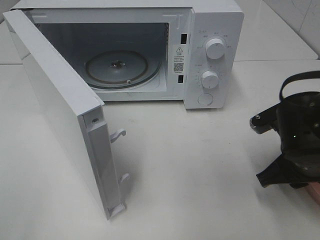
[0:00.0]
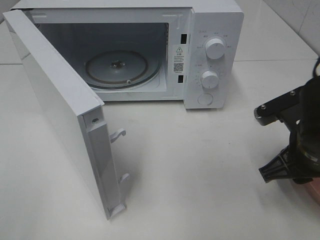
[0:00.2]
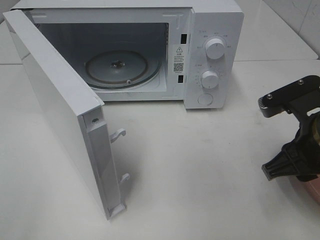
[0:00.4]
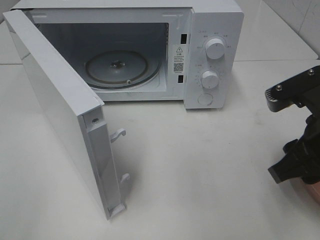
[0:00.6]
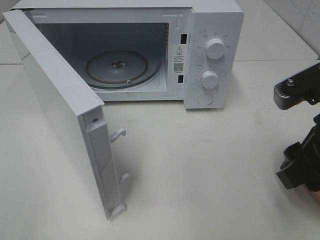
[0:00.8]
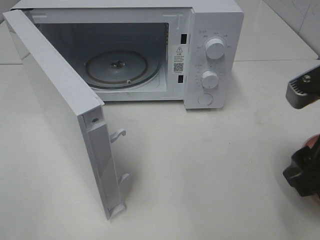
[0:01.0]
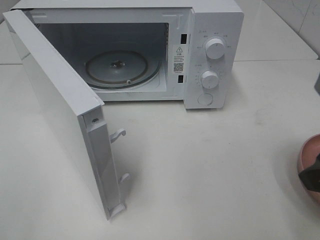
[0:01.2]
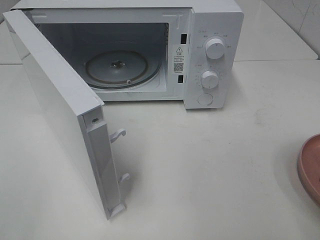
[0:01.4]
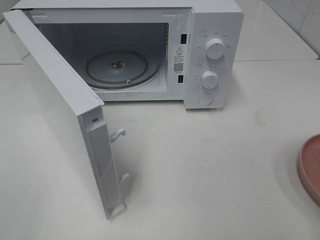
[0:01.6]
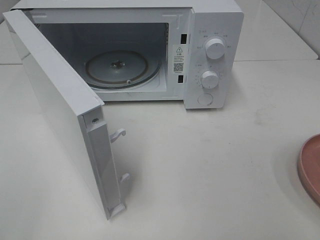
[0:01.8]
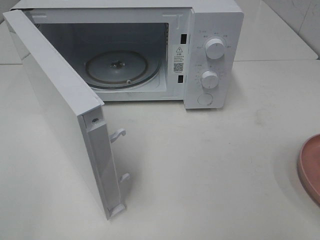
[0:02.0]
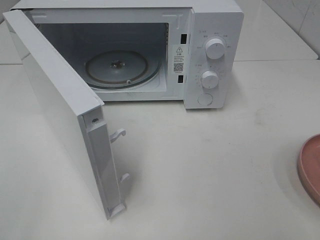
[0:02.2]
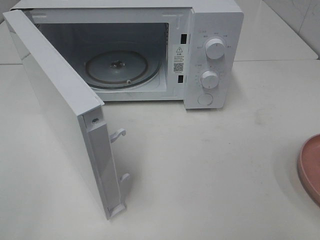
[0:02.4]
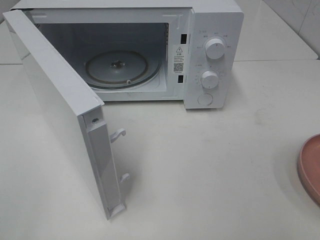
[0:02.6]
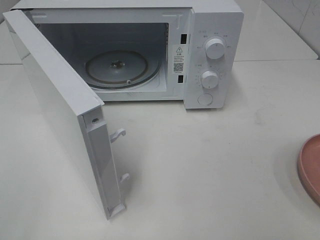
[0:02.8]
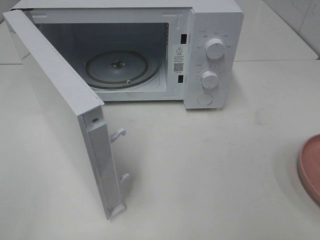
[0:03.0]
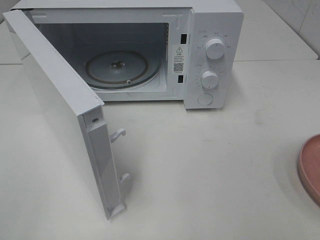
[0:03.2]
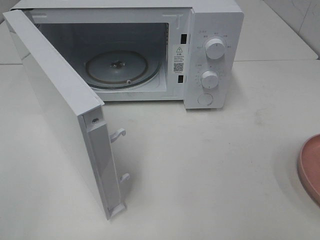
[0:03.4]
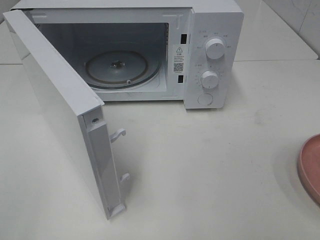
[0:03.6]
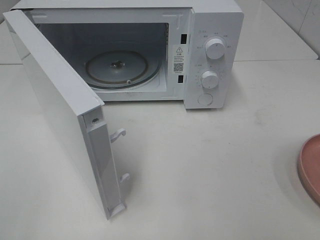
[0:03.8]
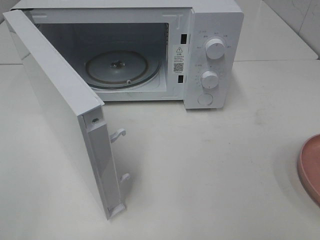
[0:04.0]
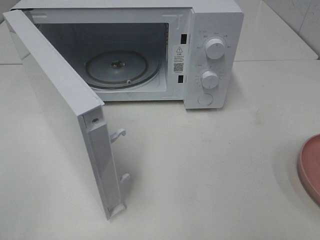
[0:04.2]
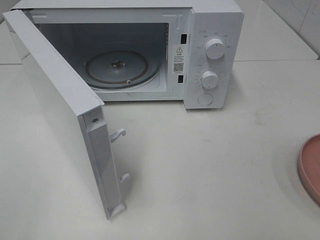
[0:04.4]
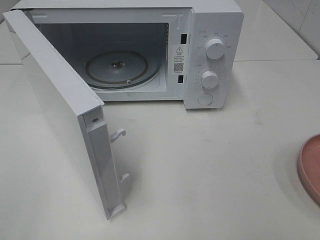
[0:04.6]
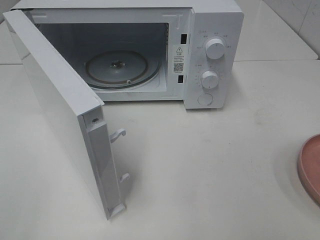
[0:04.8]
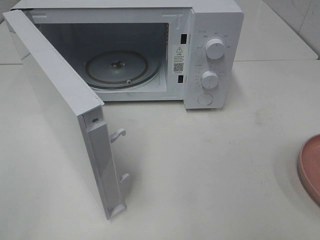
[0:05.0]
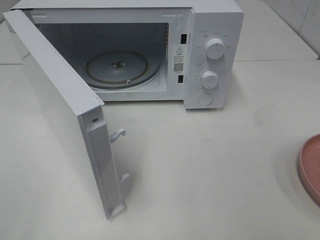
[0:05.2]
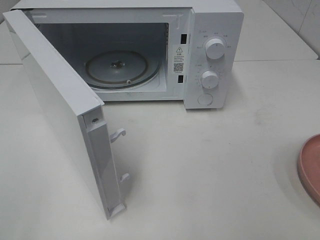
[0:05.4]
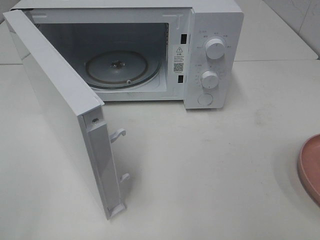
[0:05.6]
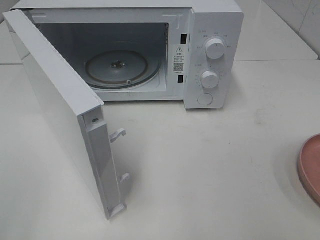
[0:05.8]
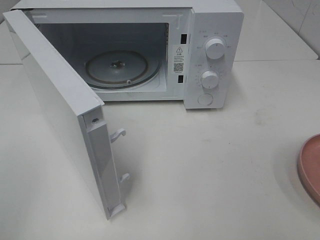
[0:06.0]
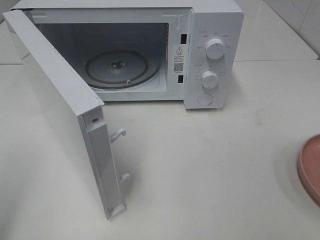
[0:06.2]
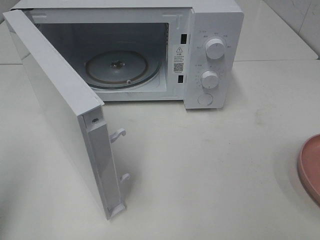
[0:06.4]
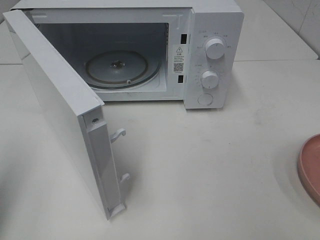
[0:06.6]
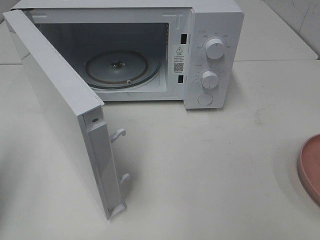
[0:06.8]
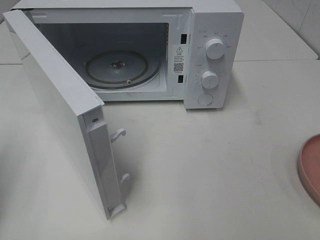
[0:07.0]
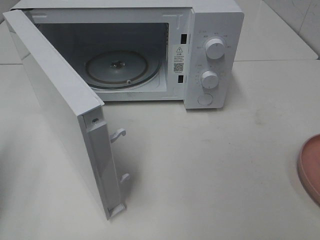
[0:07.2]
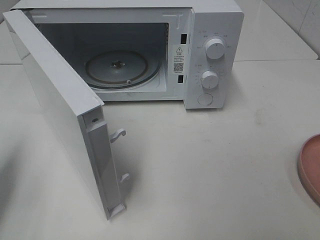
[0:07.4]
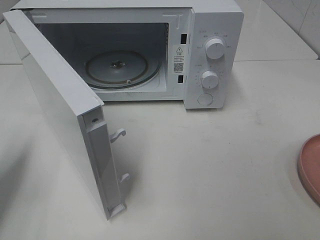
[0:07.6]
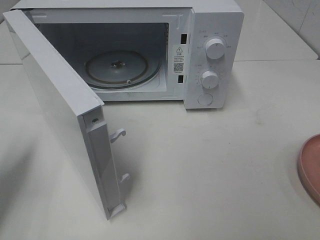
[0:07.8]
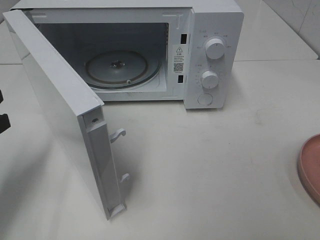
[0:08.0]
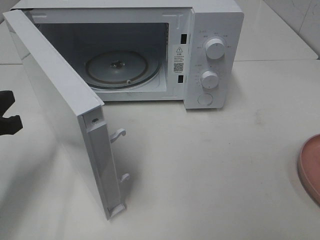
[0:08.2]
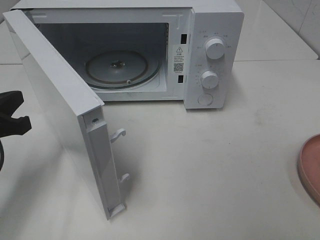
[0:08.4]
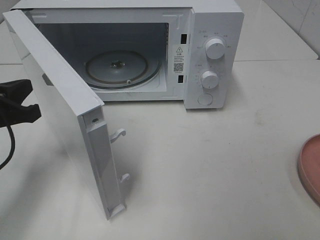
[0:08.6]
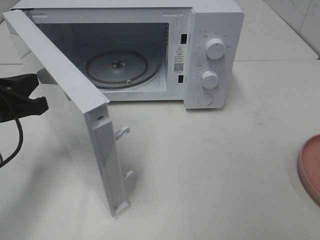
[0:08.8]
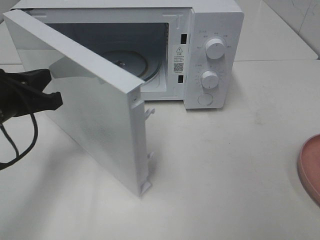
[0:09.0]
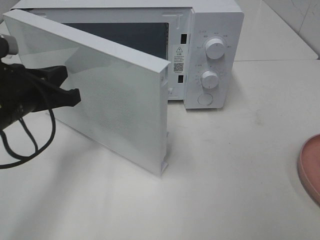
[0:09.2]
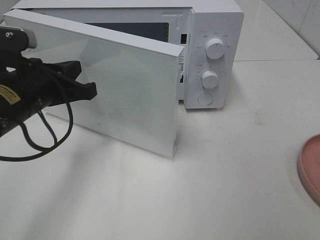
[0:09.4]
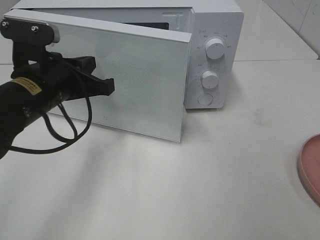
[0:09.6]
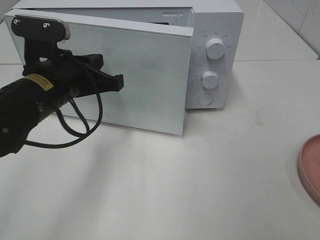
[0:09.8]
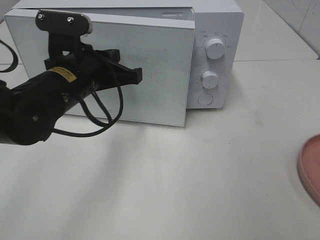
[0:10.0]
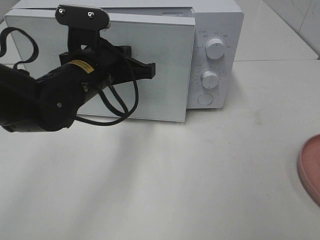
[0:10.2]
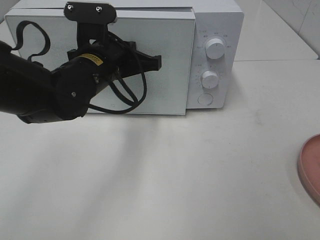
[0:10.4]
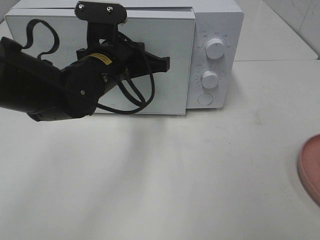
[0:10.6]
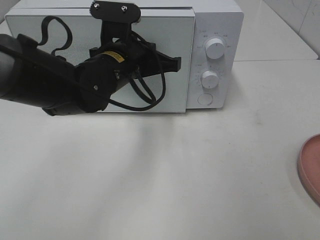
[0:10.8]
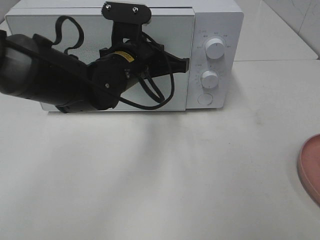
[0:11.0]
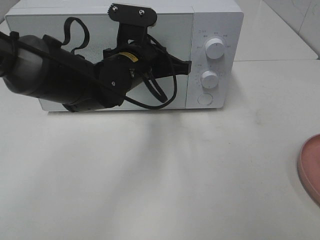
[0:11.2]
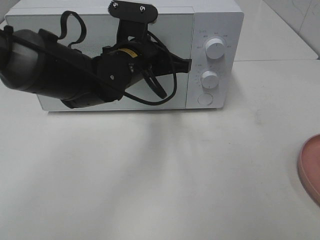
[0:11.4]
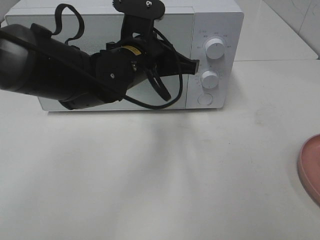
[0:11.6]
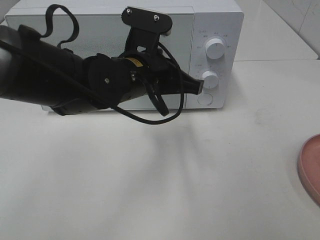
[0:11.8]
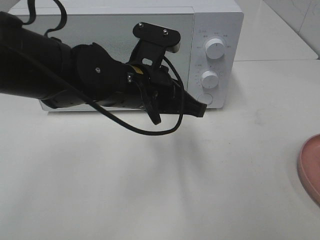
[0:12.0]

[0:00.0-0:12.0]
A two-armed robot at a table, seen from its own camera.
Task of the whole recording: Heat the burger.
Step, 0:00.0 to 0:11.6: Left hand: close the microwave door.
0:00.0 to 0:01.6: The right gripper heads upward and backward, covering about 20 cm.
0:06.0 to 0:07.6: The left gripper moves forward and downward, approximately 20 cm, and closes.
0:07.6 to 0:09.0: The left gripper shifts approximately 10 cm to the right.
0:09.0 to 0:10.4: The left gripper shifts roughly 15 cm to the right and forward.
0:10.4 to 0:12.0: The left gripper travels to the right by roughly 5 cm.

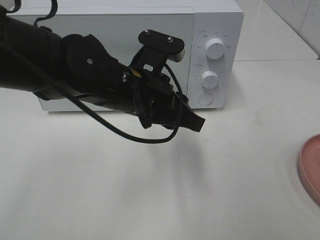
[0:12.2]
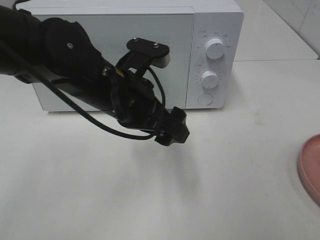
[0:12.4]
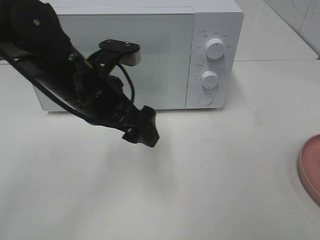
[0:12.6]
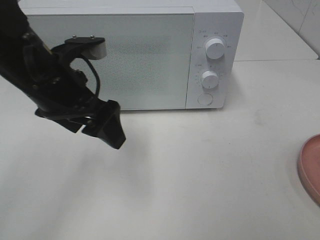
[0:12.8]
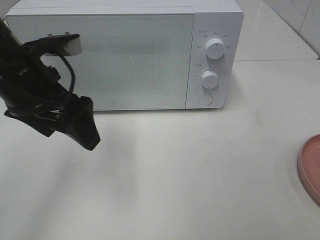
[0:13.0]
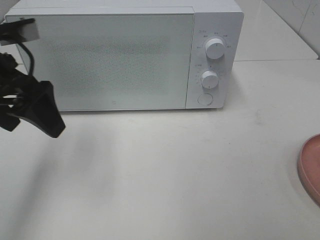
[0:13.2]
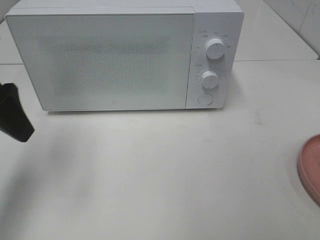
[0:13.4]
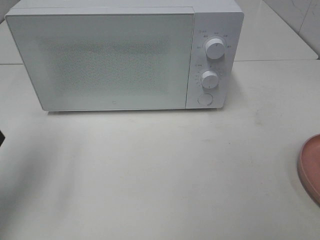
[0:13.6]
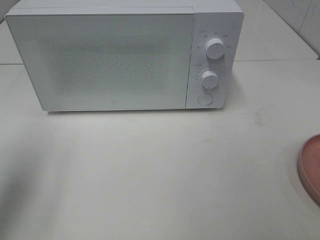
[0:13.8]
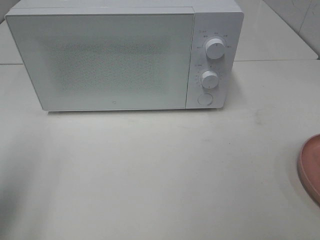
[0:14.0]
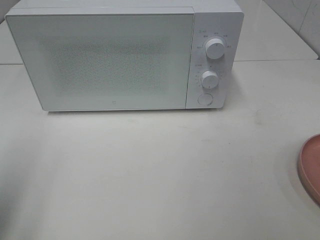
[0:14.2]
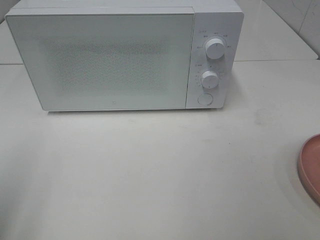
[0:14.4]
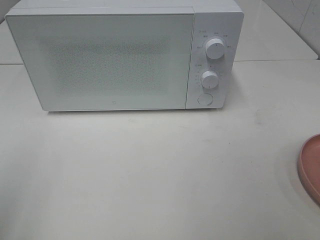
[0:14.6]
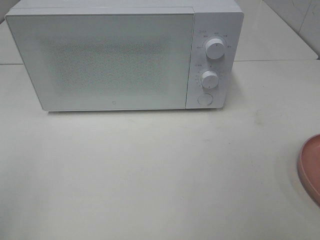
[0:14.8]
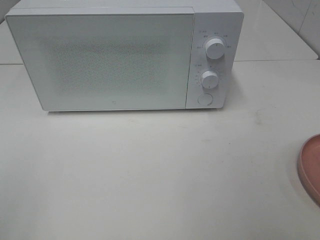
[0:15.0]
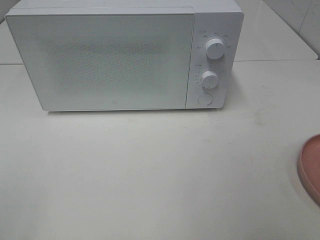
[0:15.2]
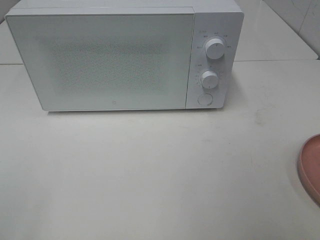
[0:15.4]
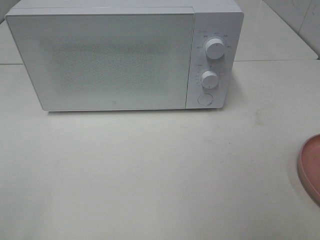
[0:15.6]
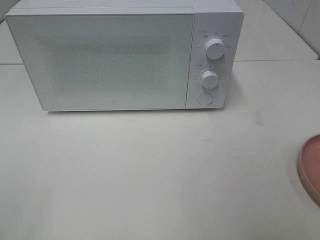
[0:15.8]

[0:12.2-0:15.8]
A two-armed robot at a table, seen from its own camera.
Task of the whole recording: Heat the burger.
0:12.2 to 0:14.0: The left gripper moves to the left and backward, some 30 cm, and opens.
0:14.0 to 0:15.8: The left gripper goes about 15 cm backward.

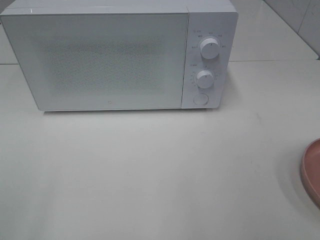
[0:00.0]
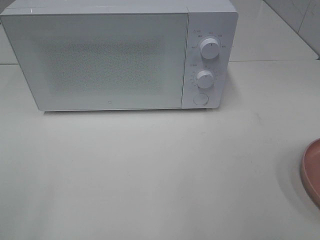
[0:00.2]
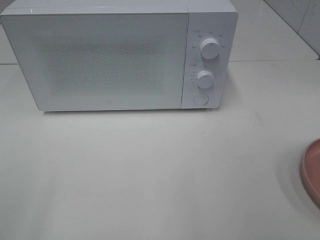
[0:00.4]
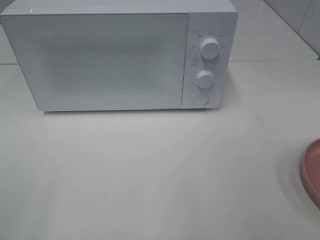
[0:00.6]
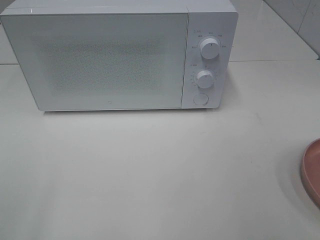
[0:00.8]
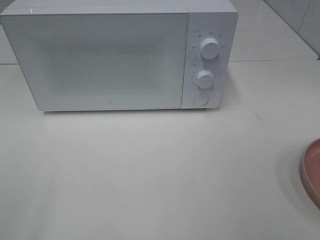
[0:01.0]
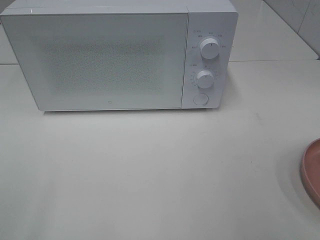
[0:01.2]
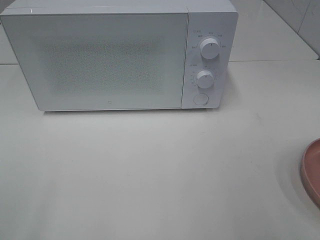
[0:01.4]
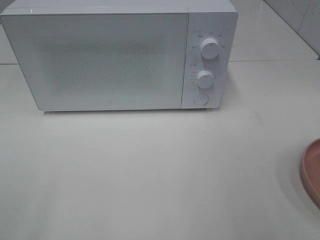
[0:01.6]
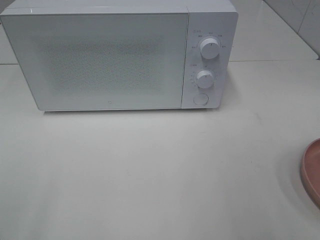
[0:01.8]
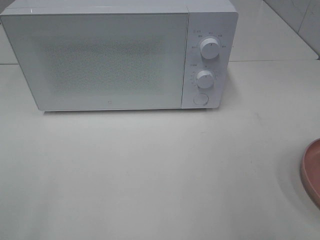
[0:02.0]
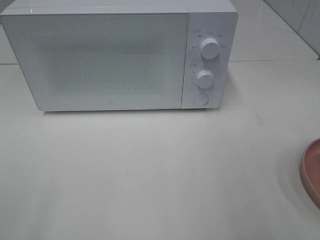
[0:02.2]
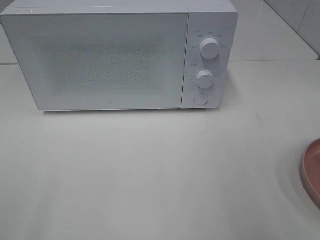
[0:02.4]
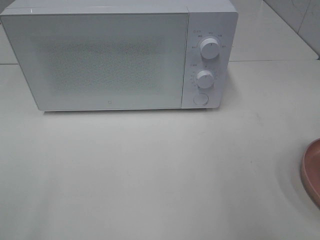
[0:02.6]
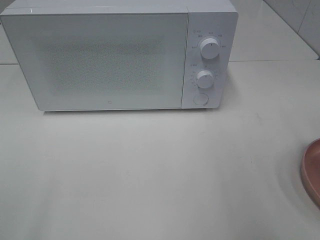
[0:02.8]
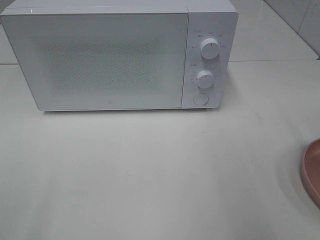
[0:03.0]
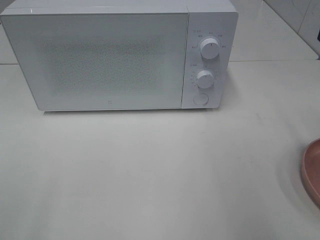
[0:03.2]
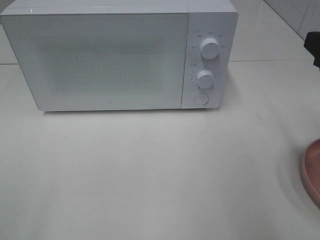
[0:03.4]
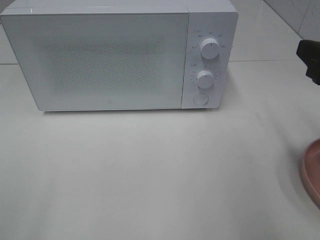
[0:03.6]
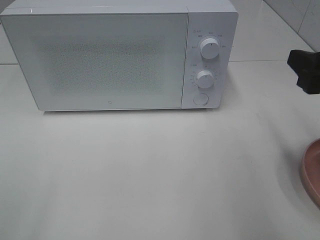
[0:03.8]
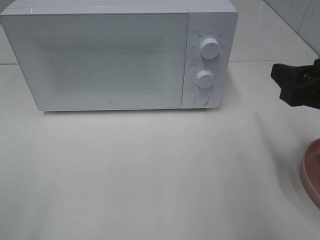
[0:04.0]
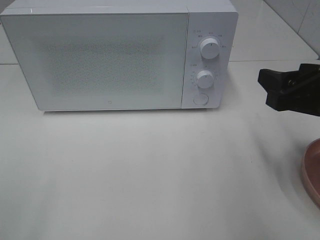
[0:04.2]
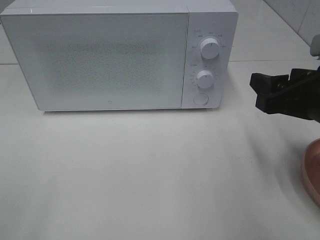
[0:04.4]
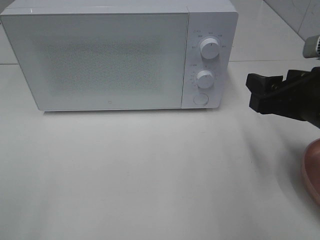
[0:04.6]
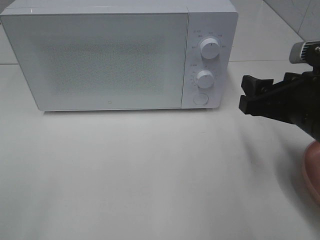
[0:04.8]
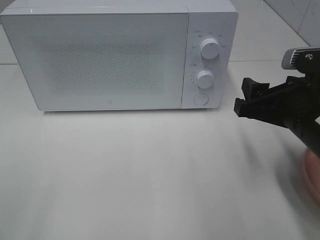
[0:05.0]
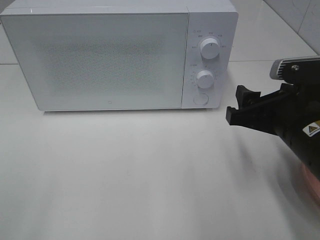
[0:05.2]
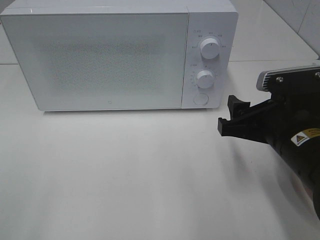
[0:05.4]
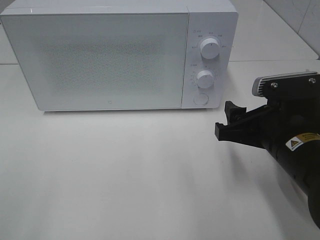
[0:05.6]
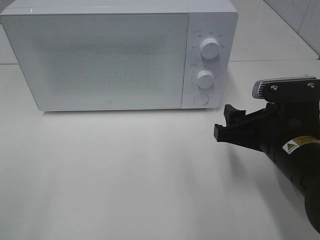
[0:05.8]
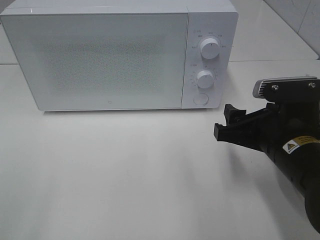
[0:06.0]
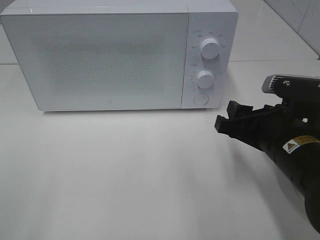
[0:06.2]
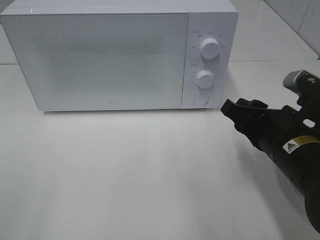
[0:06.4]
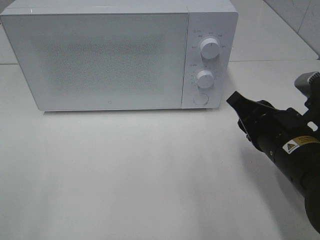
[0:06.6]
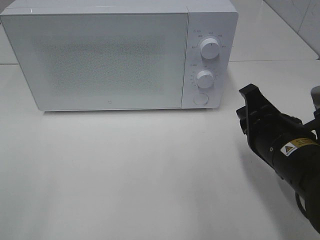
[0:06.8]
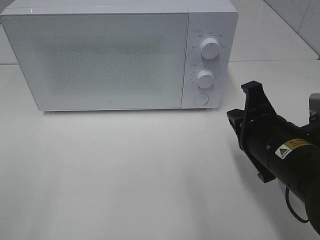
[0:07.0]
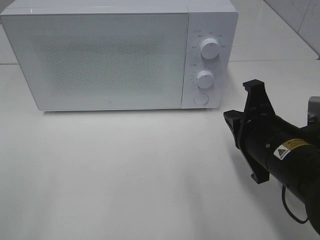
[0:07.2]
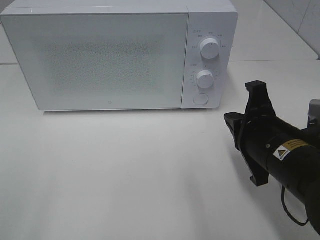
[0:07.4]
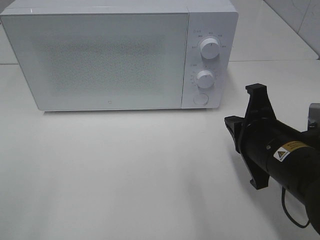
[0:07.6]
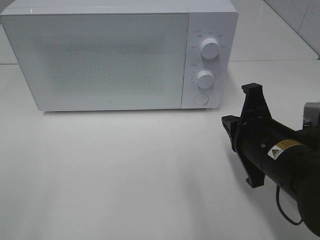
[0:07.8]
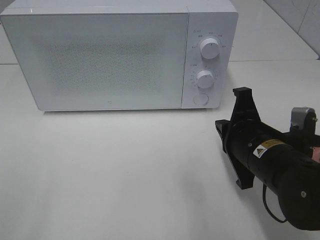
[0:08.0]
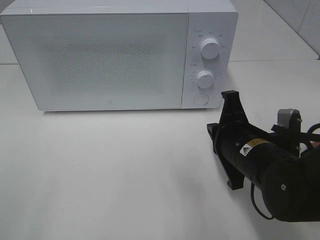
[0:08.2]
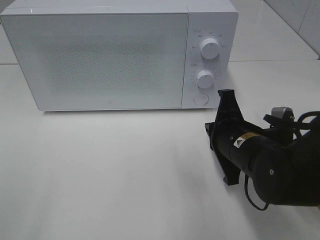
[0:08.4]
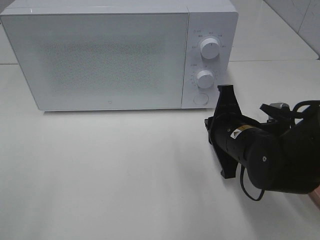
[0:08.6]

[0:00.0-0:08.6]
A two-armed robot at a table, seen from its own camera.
Task of the whole recording: Heat the burger.
0:02.8 to 0:04.4: The right gripper travels downward and to the left by roughly 10 cm.
0:04.4 to 0:05.8: The right gripper goes about 10 cm downward and to the left.
0:05.8 to 0:07.2: The right gripper closes its fingers.
0:07.2 to 0:08.6: The right gripper travels forward by roughly 5 cm.
